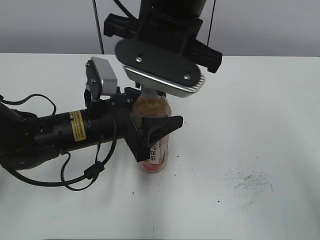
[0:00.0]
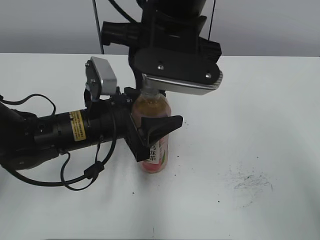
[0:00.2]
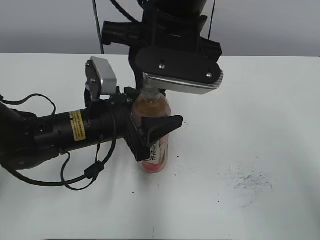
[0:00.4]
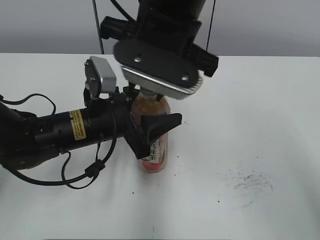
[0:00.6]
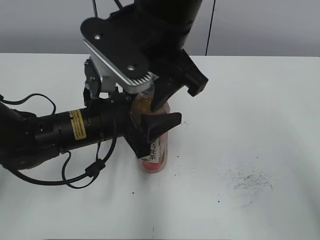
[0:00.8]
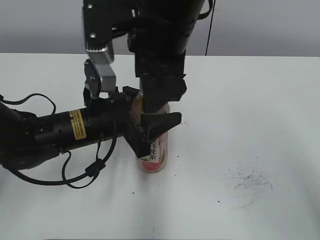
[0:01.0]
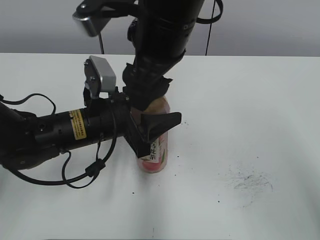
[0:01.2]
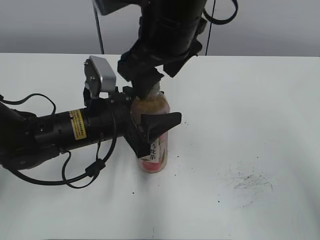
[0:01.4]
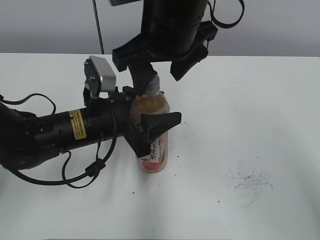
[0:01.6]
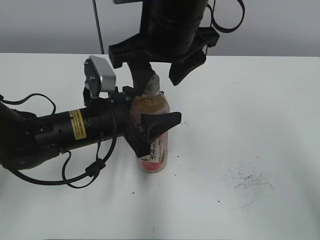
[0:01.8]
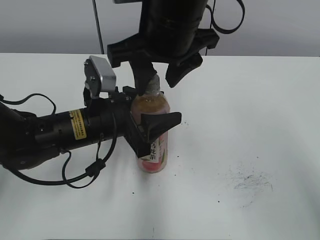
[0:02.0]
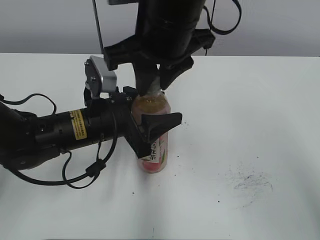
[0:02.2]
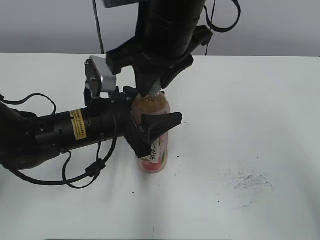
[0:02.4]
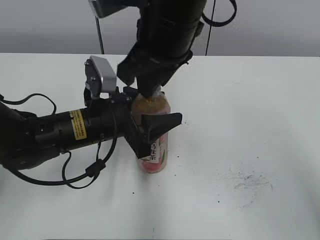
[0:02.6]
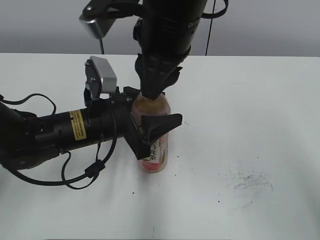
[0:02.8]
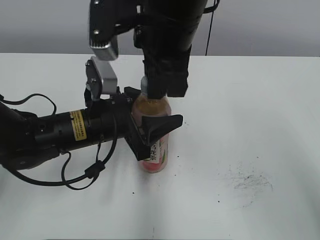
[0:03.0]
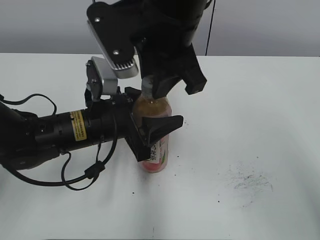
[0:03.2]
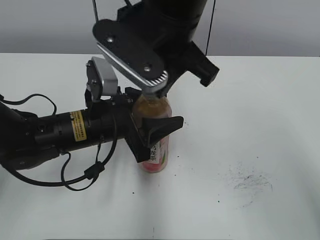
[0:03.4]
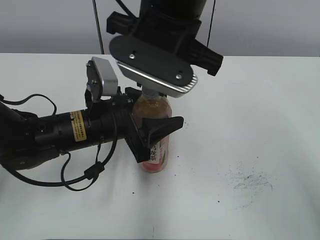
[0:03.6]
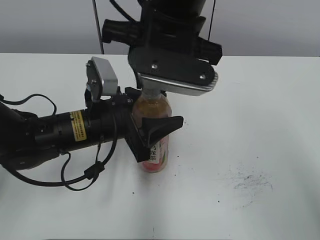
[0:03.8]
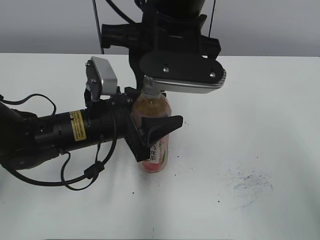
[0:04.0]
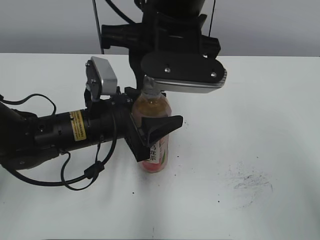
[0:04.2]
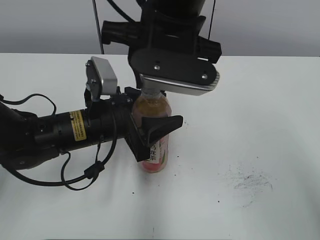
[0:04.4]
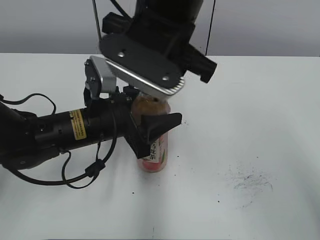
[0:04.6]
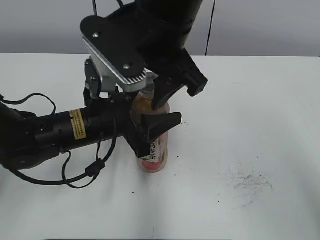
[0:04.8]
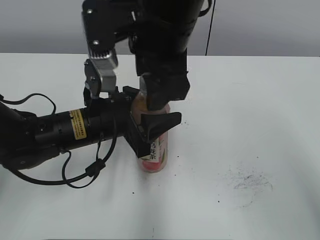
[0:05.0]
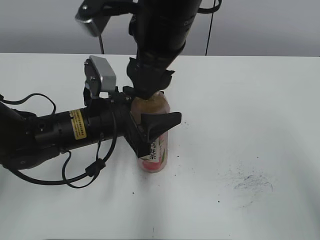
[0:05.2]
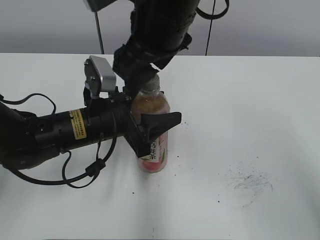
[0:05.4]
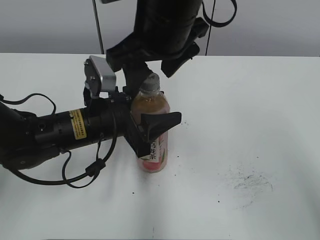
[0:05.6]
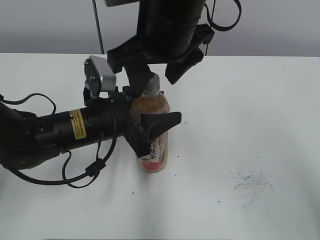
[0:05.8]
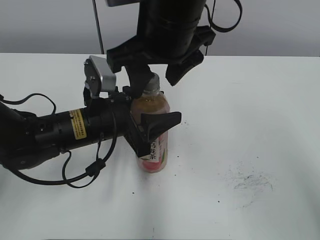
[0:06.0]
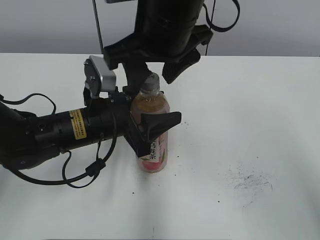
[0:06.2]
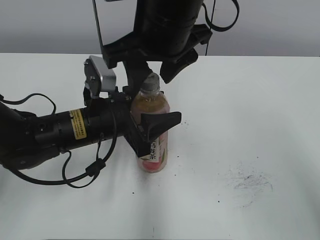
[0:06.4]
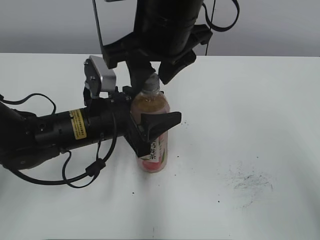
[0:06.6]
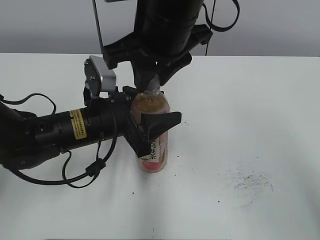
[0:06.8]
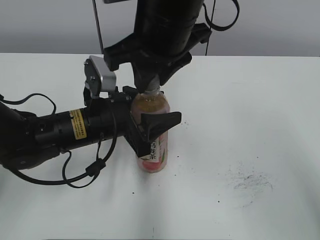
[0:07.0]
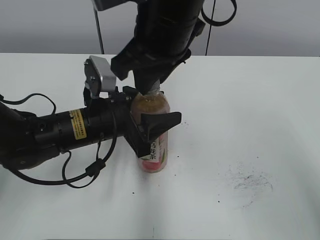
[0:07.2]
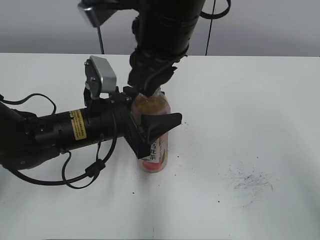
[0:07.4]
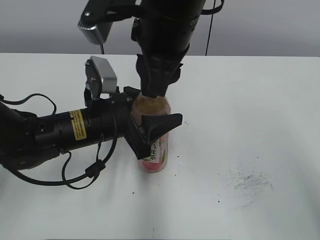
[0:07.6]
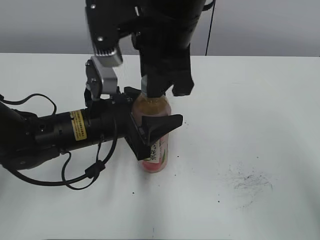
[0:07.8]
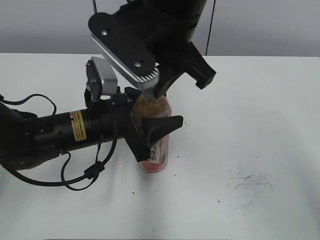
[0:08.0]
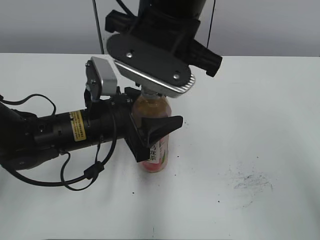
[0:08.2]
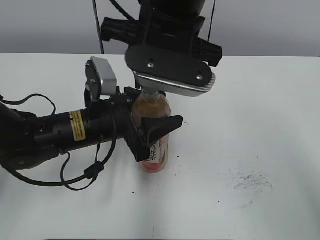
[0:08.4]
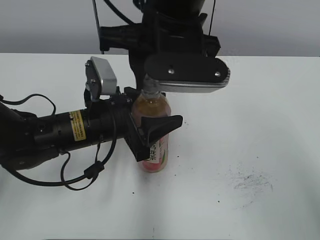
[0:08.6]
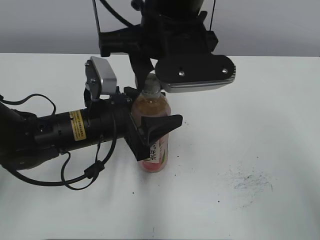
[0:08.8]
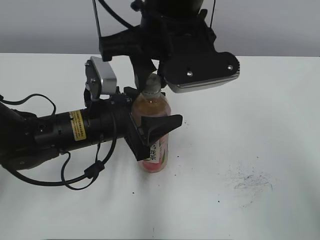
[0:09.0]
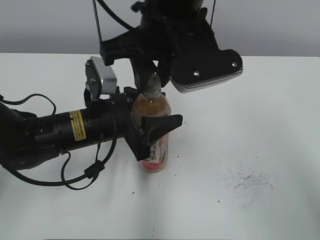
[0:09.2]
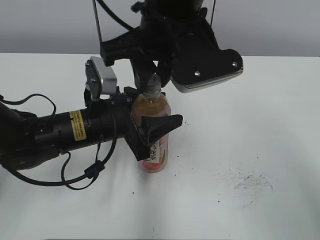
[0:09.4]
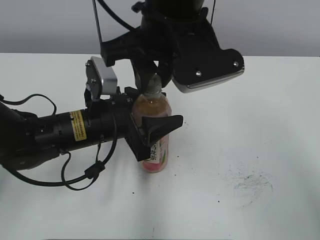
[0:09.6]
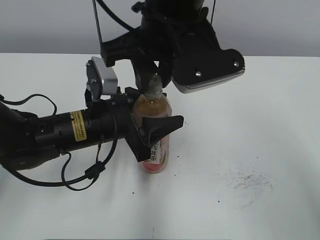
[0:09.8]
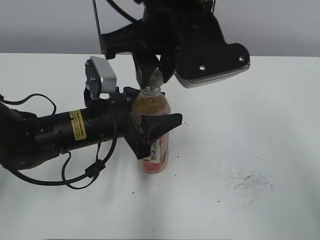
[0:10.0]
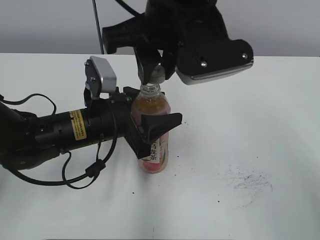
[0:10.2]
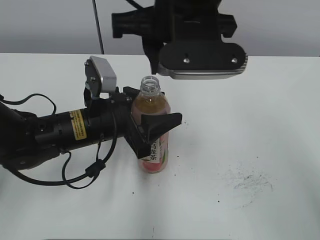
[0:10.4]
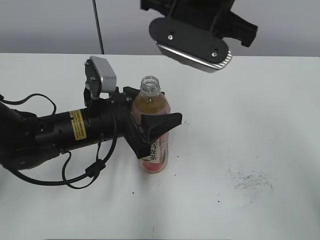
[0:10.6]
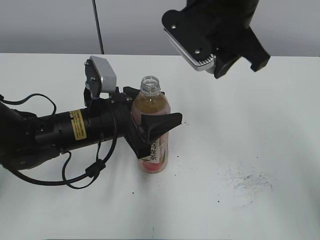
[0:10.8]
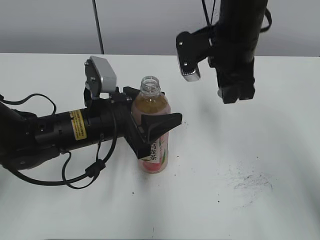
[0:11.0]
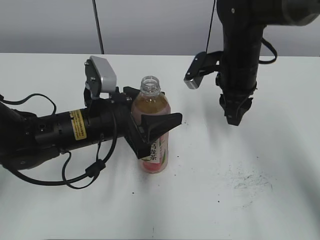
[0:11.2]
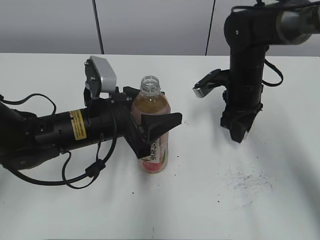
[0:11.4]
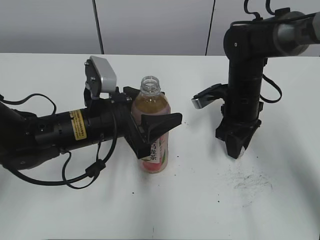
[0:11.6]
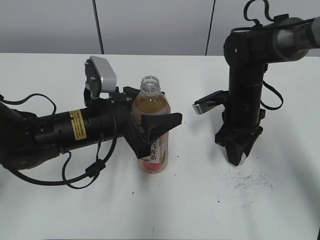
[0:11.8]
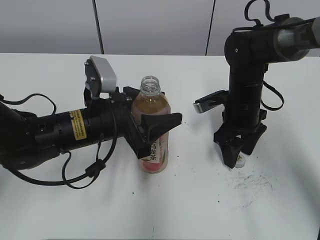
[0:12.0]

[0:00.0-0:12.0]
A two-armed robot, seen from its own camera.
0.0 to 1.6 s: The right gripper opens its fingers.
1.6 to 3.0 s: The right gripper closes.
4.4 to 6.0 s: The right gripper opens its fingers.
6.0 to 7.6 s: The right gripper closes.
9.0 to 10.4 s: The grippers make only small movements.
10.4 to 12.0 s: The right gripper heads downward and to the right, covering approximately 25 cm, and opens up.

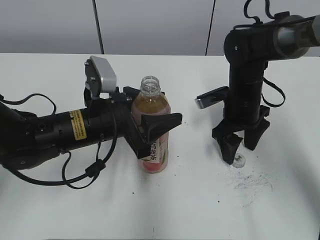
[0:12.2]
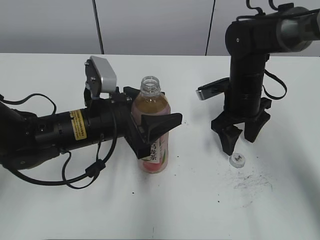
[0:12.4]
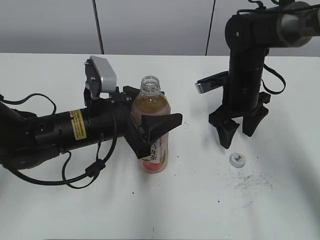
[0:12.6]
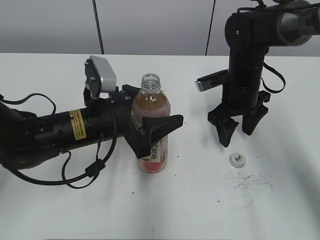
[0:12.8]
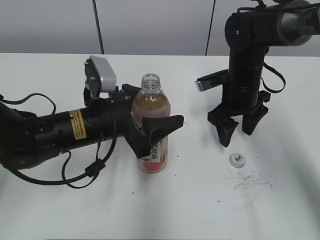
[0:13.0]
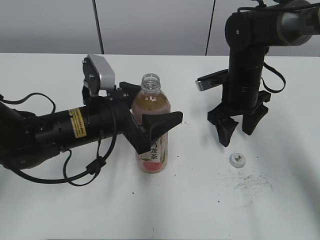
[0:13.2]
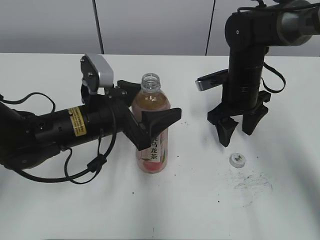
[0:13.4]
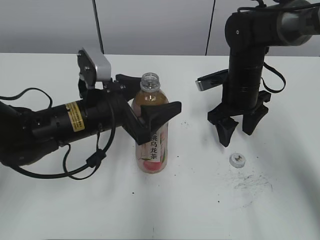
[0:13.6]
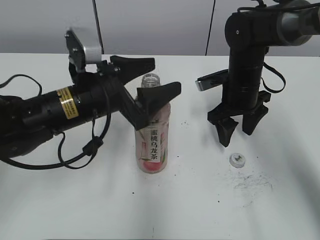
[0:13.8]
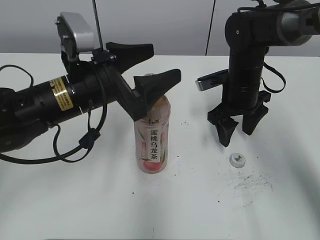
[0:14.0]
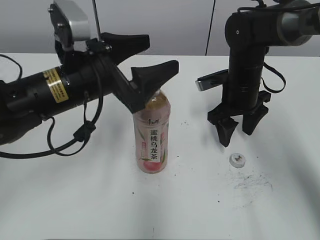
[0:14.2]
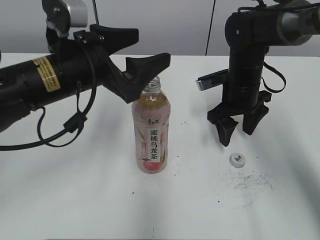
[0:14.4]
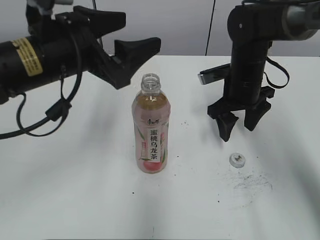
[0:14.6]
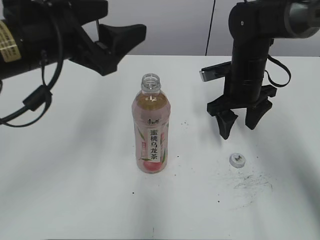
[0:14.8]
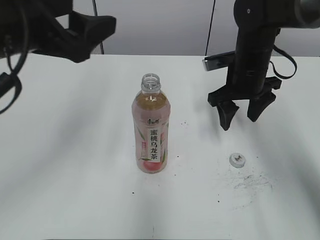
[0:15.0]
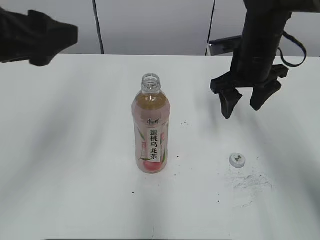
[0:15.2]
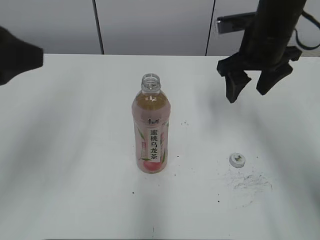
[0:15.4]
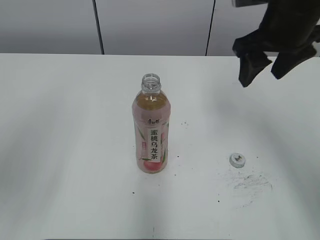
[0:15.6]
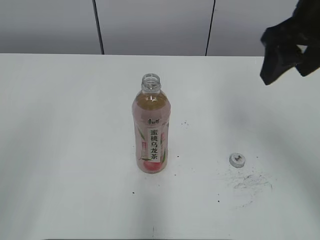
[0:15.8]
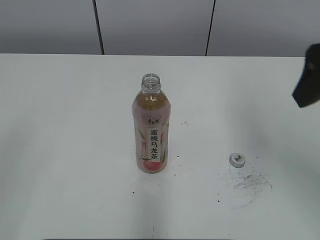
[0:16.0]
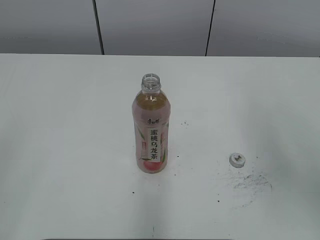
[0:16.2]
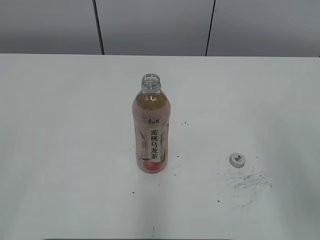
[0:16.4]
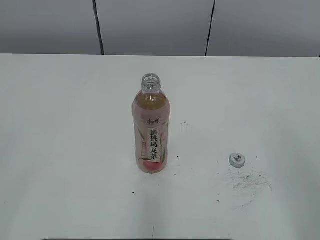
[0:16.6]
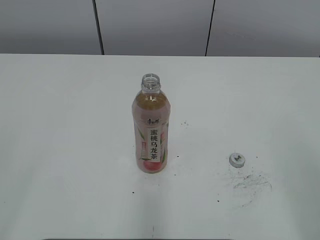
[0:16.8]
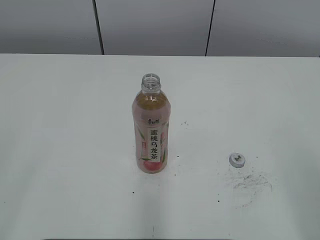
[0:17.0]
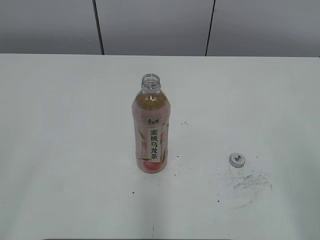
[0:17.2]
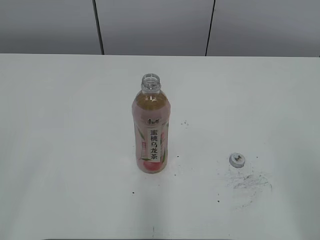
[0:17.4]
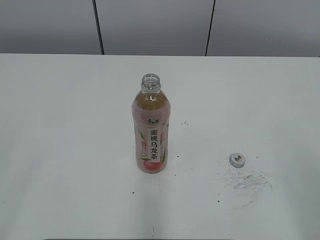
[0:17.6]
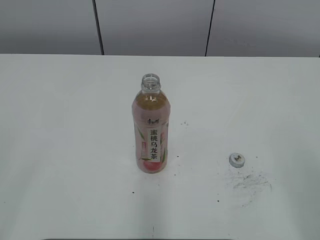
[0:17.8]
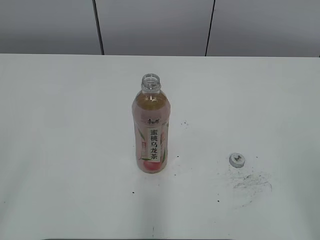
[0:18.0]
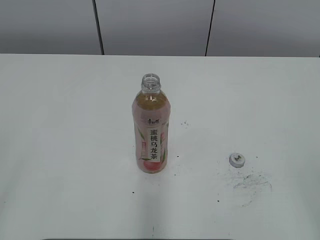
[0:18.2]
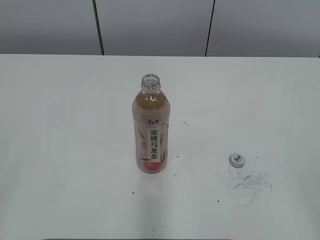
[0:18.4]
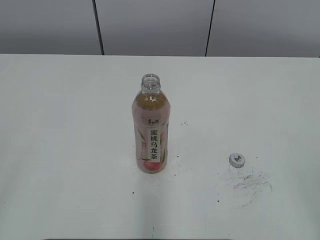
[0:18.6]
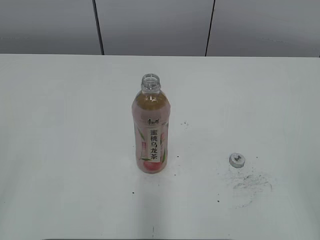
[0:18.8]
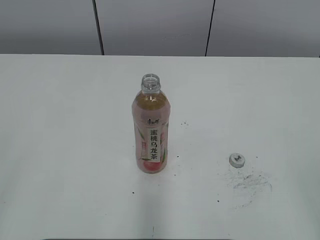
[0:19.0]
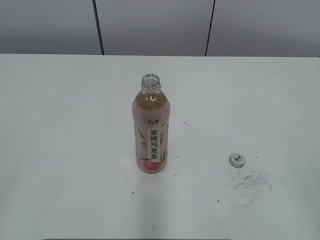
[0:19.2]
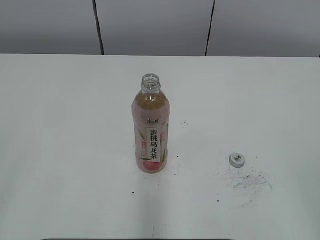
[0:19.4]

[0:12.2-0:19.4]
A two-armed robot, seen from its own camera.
Step, 12.4 to 13.6 s: Place the Peach Oolong Tea with the left hand.
12.2 to 13.6 s: The left gripper opens.
13.6 to 15.0 s: The left gripper travels upward and to the left by about 15 cm.
15.0 to 16.6 s: The left gripper travels backward and to the left by some 30 cm, while the right gripper is displaced backward and upward by some 35 cm.

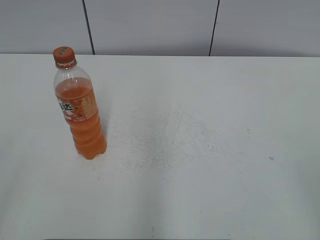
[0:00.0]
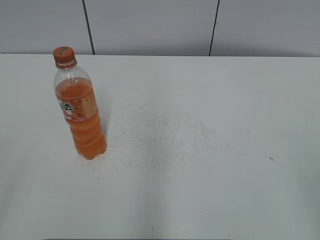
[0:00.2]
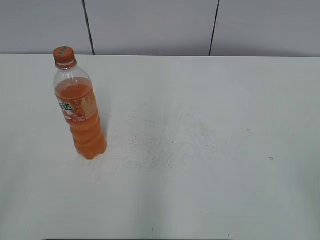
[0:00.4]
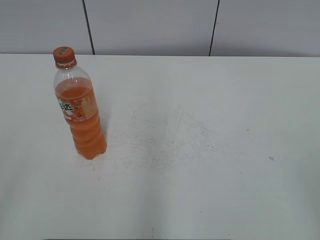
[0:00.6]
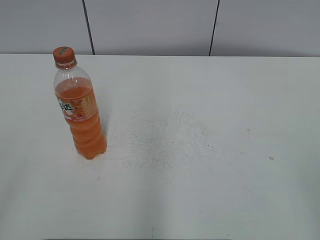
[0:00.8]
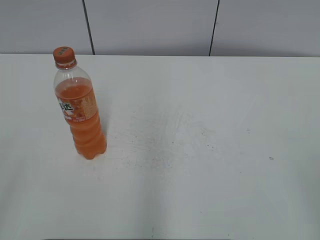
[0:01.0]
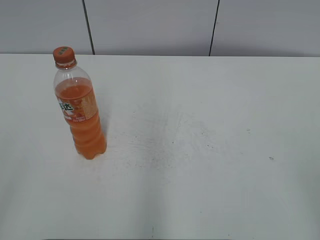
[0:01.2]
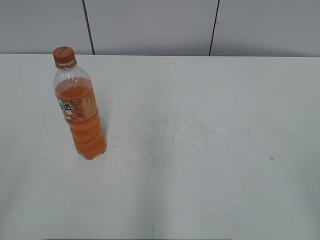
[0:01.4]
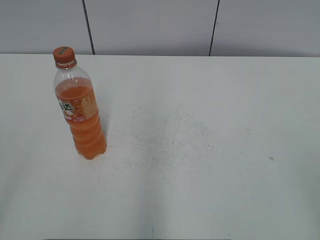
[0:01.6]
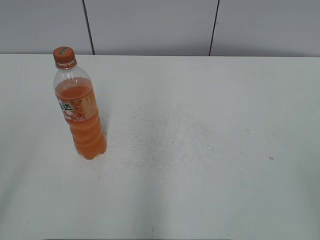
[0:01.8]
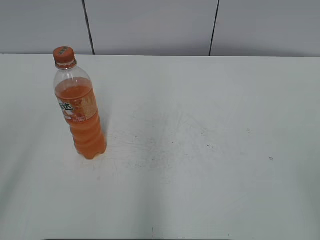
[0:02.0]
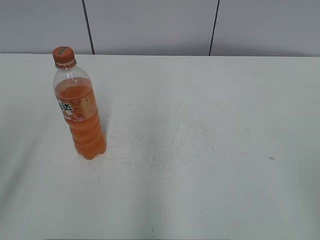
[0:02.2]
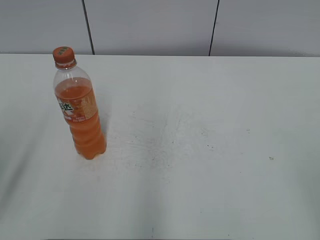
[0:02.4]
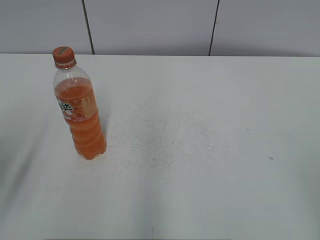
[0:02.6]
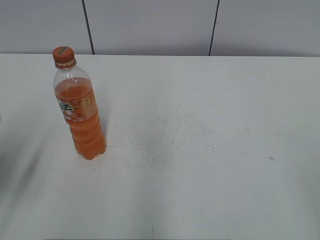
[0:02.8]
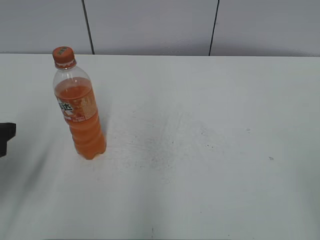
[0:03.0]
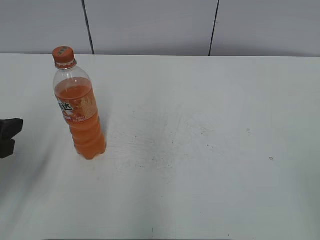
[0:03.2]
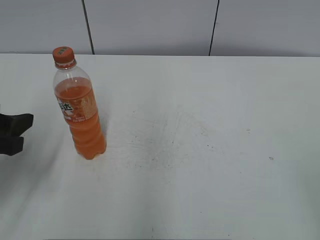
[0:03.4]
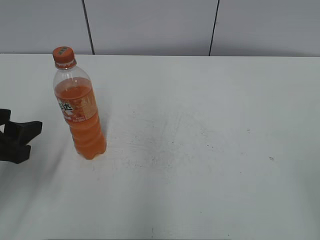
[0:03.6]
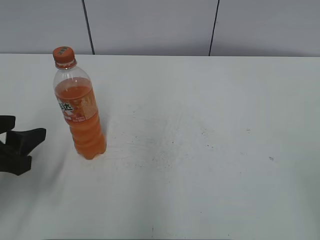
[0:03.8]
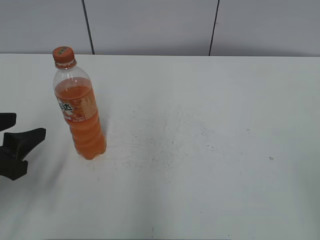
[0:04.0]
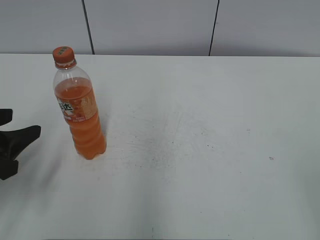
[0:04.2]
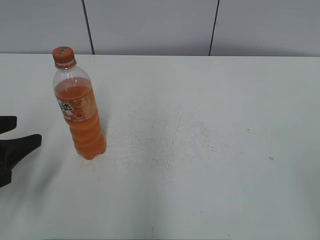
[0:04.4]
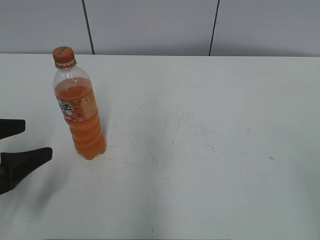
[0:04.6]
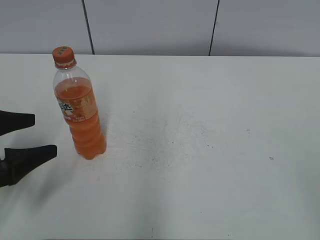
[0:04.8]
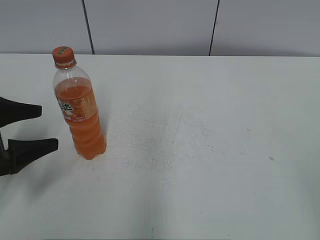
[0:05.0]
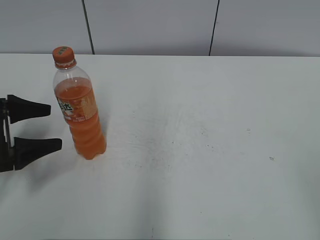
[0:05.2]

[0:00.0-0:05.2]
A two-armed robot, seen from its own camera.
1.8 to 3.4 s: The left gripper travels forward and downward by some 25 cm.
3.4 to 5.2 s: The left gripper travels forward and downward by some 10 cm, and opens its fingers.
